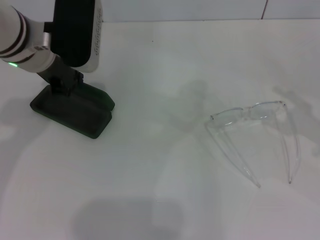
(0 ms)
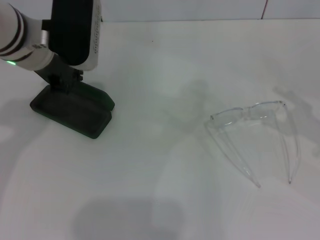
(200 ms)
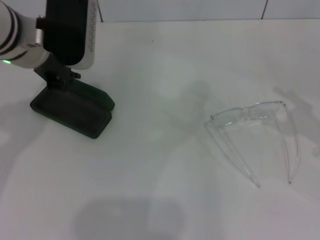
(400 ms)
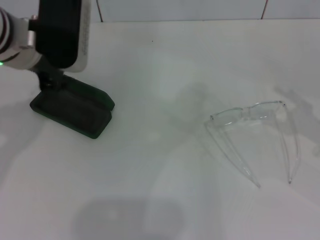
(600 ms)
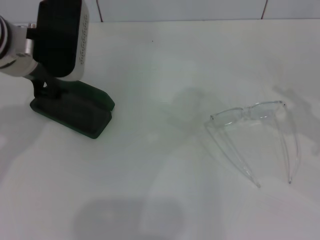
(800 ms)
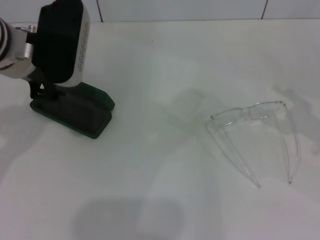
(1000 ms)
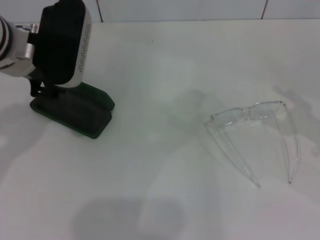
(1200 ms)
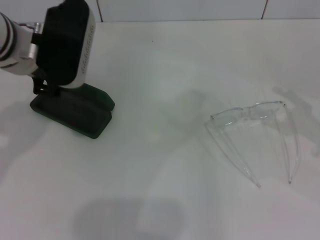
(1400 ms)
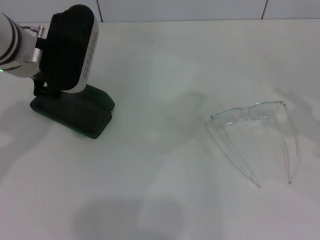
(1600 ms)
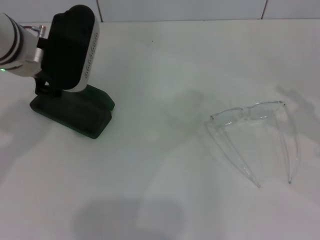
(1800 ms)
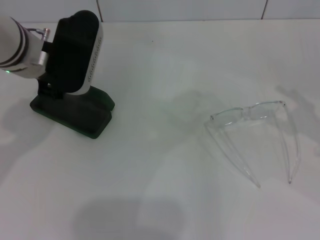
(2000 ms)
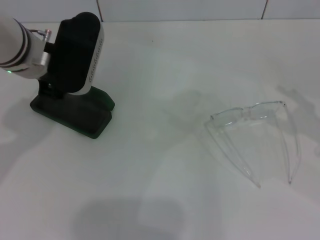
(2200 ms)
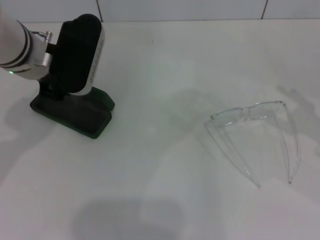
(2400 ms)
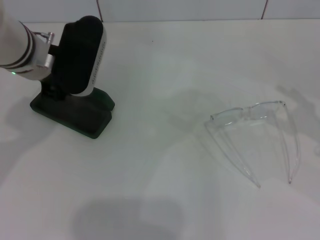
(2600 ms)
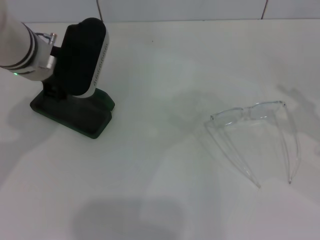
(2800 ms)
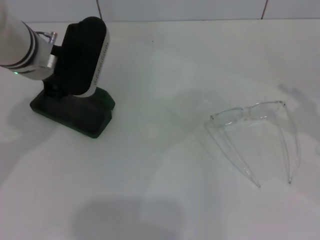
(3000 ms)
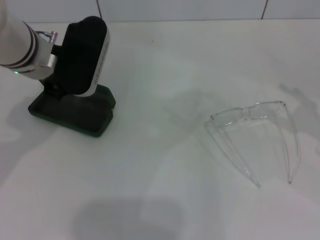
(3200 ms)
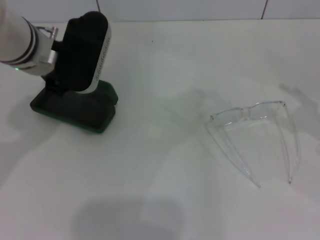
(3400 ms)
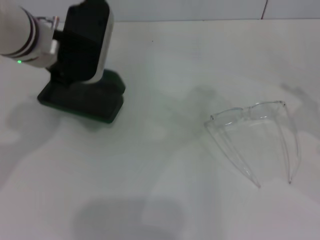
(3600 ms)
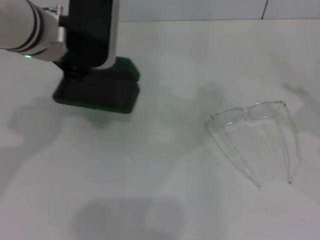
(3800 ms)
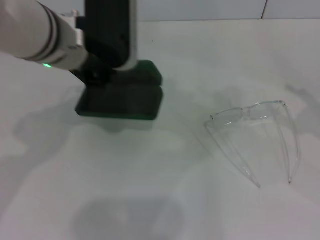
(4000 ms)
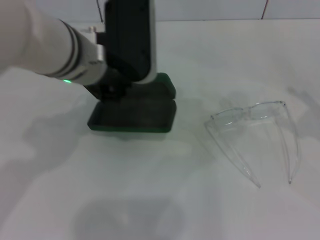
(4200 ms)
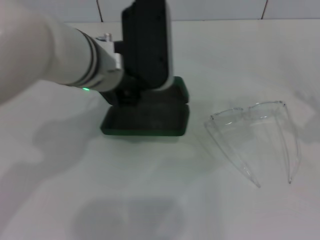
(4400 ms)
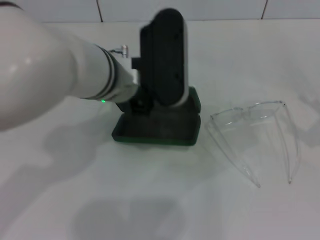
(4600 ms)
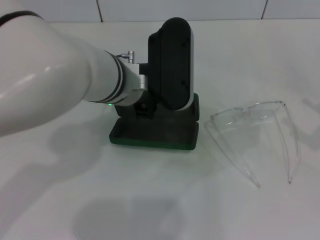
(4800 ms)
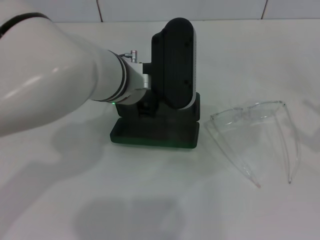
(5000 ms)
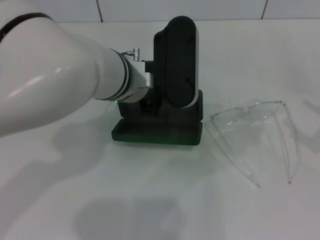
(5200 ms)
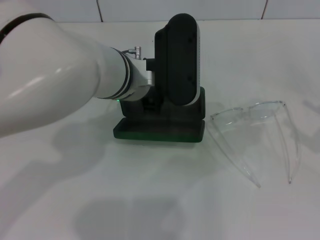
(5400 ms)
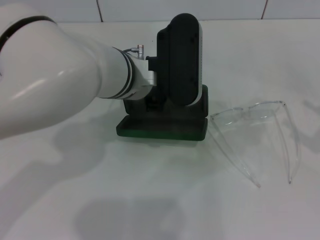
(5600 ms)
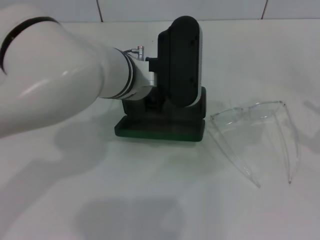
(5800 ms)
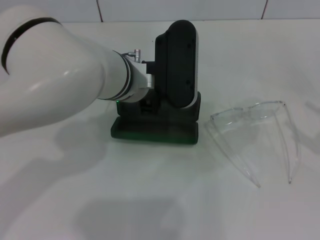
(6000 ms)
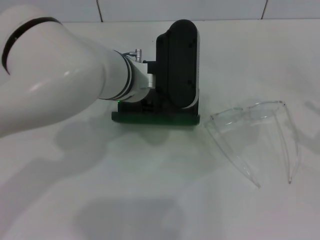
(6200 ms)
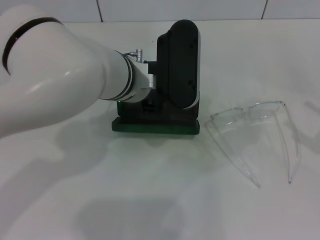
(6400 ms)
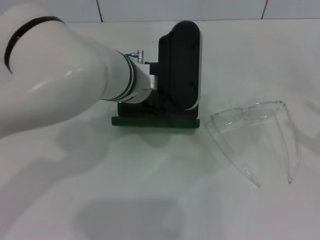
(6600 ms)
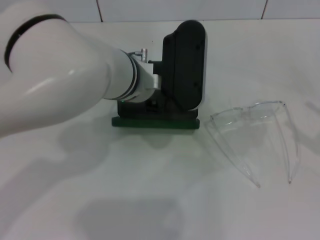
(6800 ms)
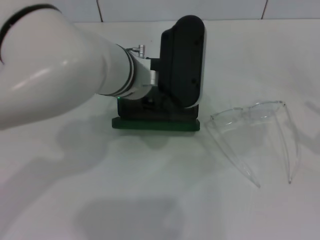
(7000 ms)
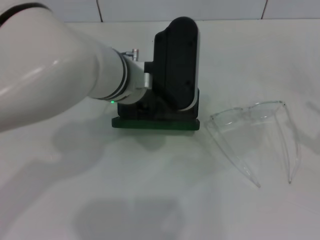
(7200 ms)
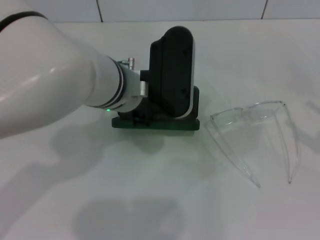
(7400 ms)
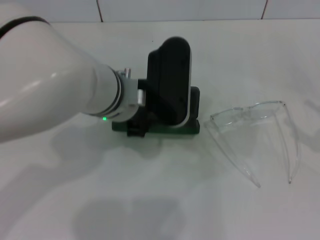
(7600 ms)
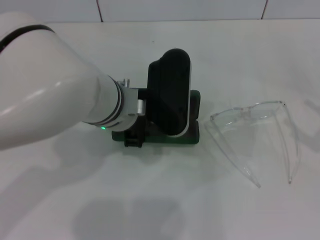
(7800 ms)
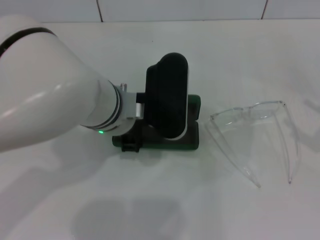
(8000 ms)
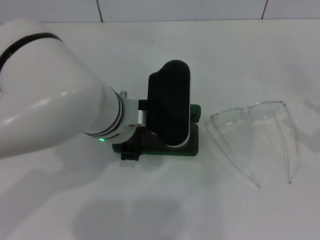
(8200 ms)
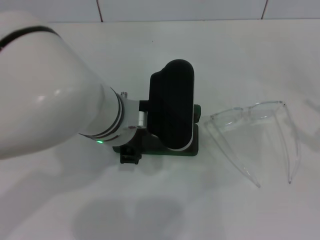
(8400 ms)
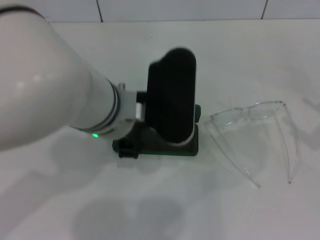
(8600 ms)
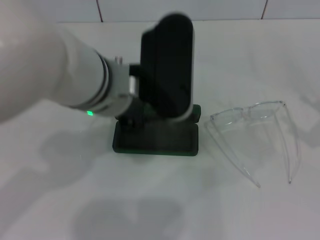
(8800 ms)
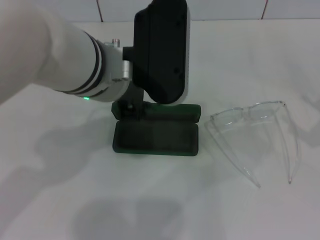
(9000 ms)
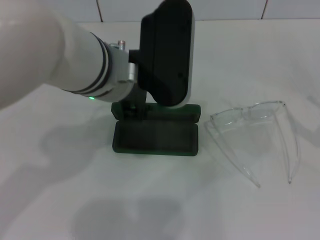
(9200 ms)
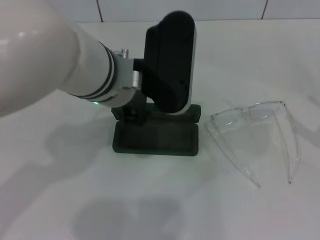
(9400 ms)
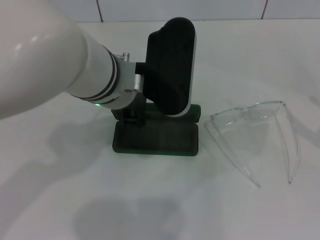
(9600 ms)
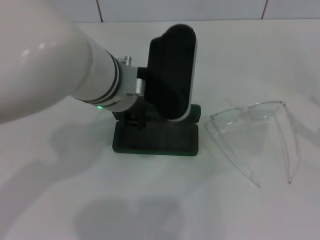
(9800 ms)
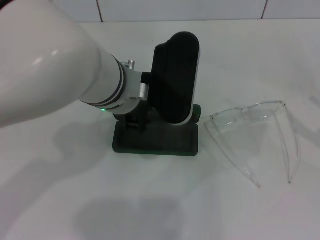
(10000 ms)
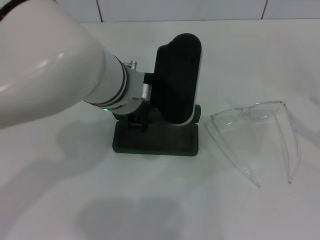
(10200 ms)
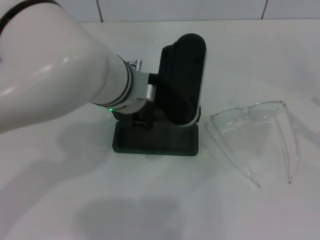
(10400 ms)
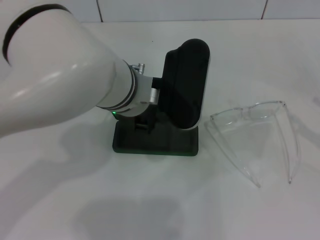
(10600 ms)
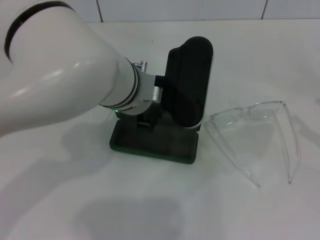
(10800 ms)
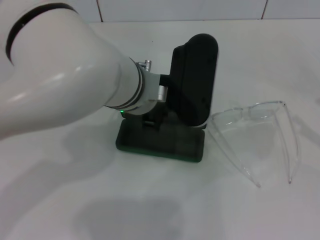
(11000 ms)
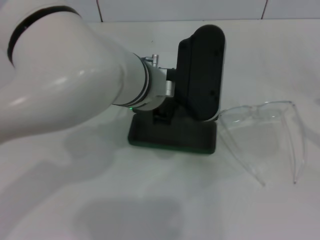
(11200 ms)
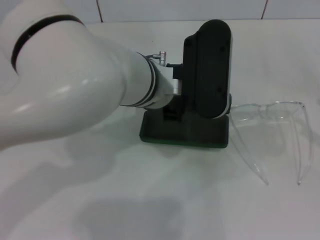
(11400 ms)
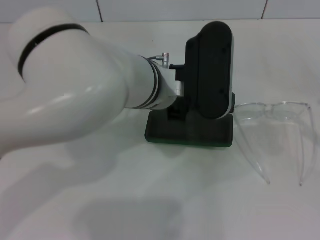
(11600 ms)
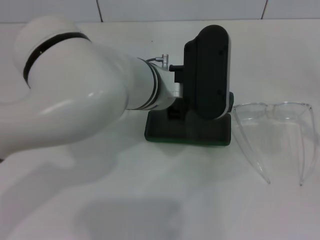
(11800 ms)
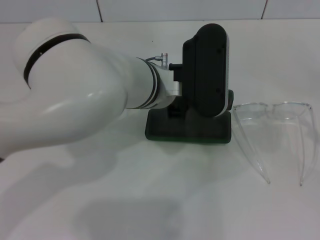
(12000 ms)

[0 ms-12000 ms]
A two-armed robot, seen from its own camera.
Step, 0 ms to 3000 ms: Grab the glasses case with your left hand.
Step, 3200 ms to 8000 ms: Place the glasses case in the center of the table with your left hand.
Step, 8200 ms to 10800 ms: Grab the glasses case with your left hand.
0 ms to 1600 ms: The left gripper opens.
1600 ms to 3000 ms: The grippers move only a little.
3000 ms to 4400 ms: The left gripper heads to the right, covering roughly 10 cm.
6000 ms to 7600 ms: The grippers make only small movements.
7600 ms to 9000 ms: The left gripper moves upward, approximately 5 cm.
9000 ms to 10400 ms: The left gripper travels downward by approximately 5 cm.
10400 ms to 12000 ms: The grippers move only a little.

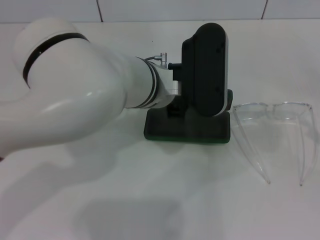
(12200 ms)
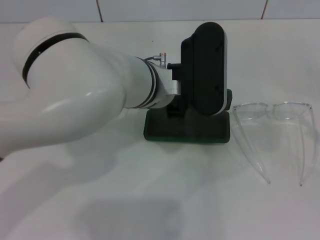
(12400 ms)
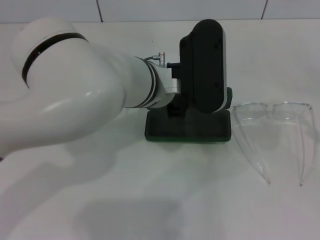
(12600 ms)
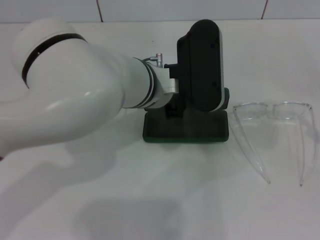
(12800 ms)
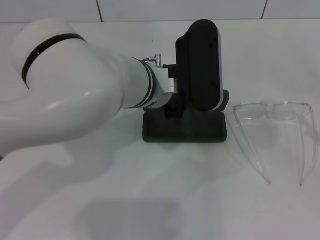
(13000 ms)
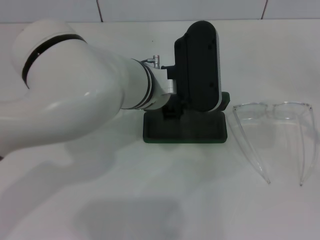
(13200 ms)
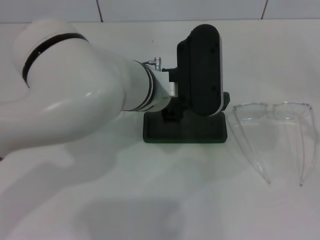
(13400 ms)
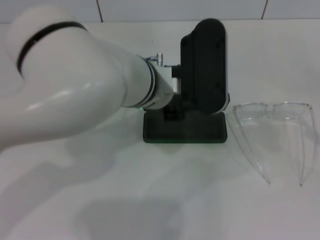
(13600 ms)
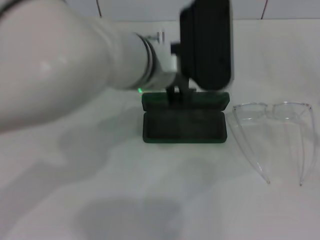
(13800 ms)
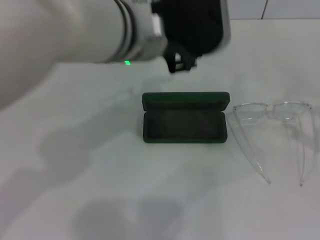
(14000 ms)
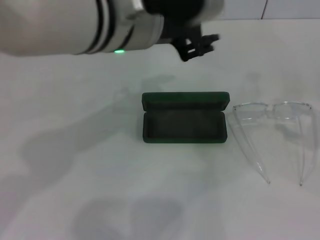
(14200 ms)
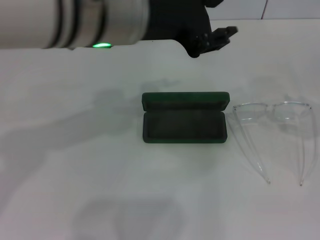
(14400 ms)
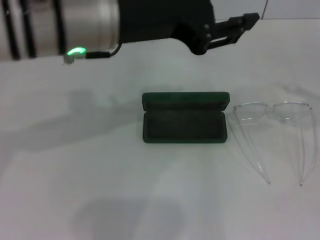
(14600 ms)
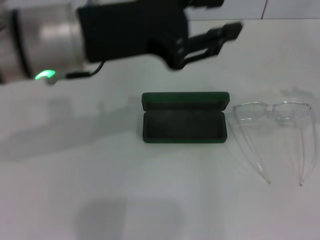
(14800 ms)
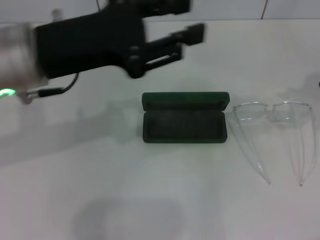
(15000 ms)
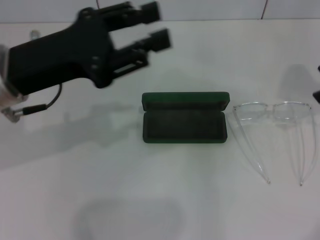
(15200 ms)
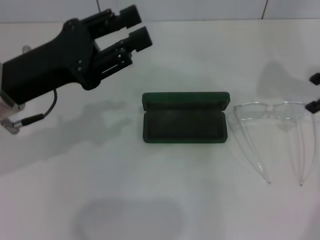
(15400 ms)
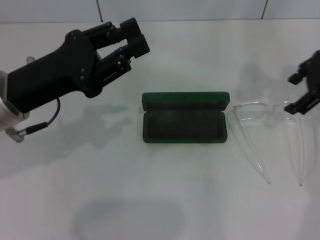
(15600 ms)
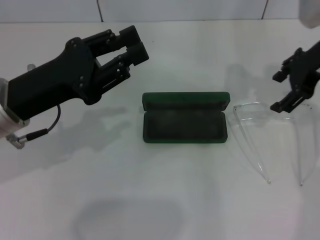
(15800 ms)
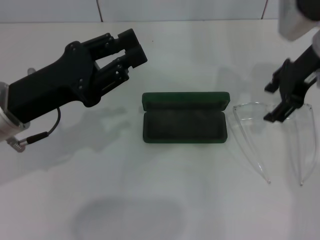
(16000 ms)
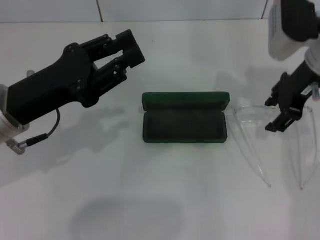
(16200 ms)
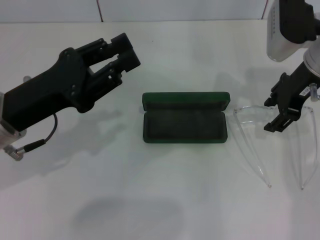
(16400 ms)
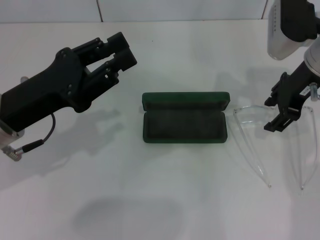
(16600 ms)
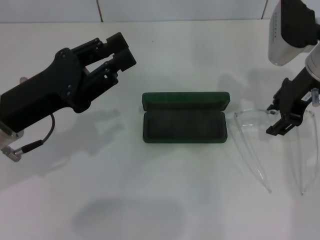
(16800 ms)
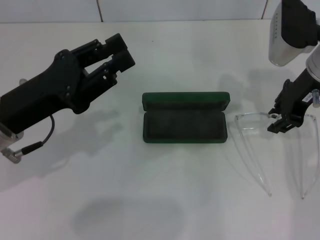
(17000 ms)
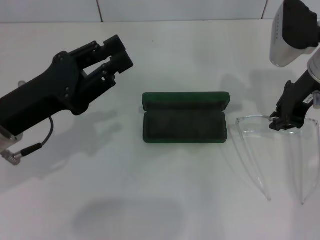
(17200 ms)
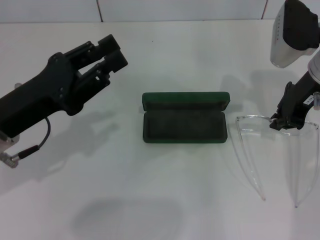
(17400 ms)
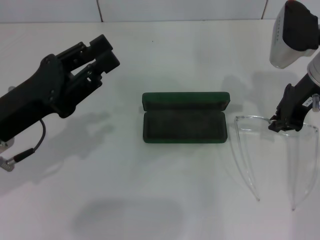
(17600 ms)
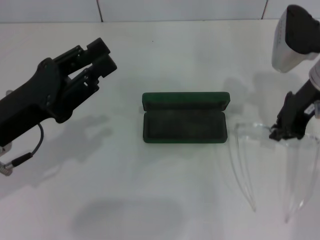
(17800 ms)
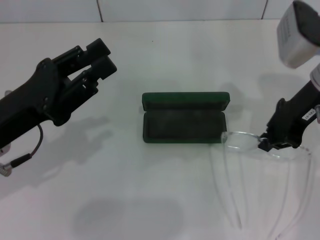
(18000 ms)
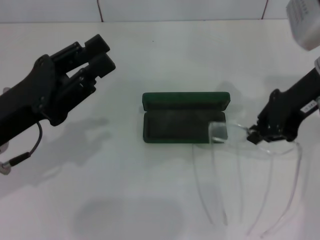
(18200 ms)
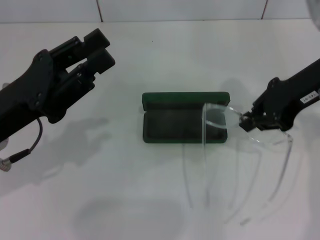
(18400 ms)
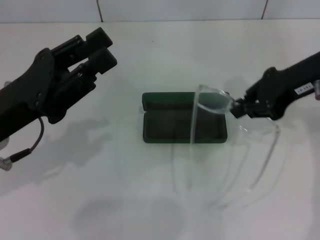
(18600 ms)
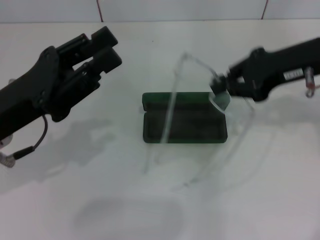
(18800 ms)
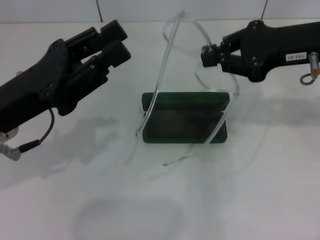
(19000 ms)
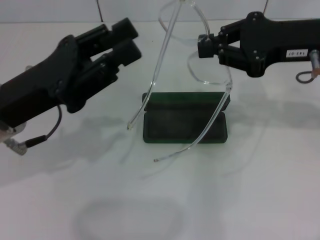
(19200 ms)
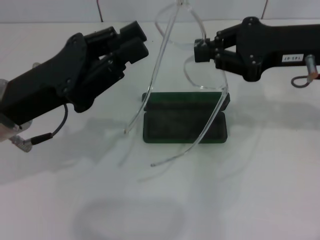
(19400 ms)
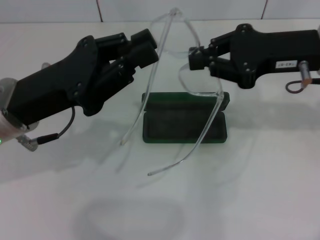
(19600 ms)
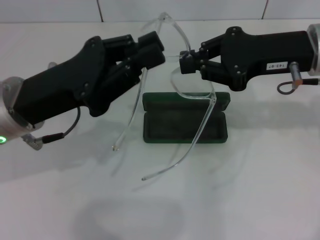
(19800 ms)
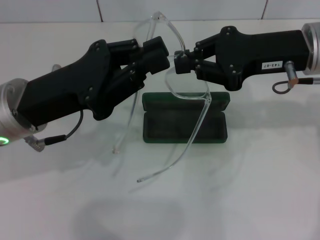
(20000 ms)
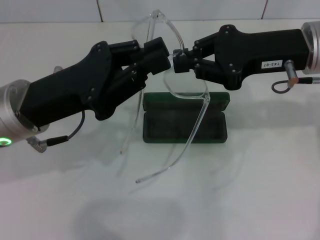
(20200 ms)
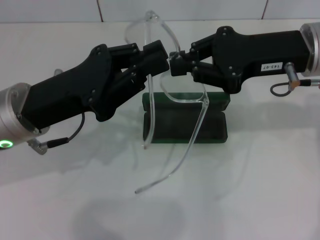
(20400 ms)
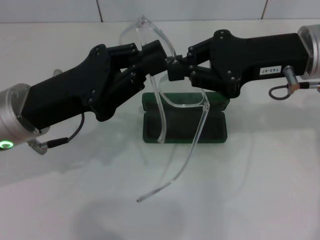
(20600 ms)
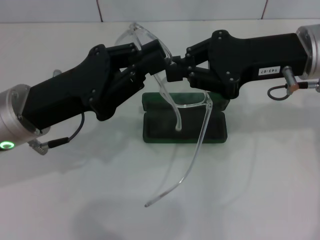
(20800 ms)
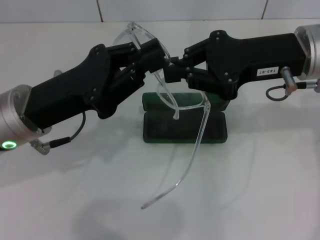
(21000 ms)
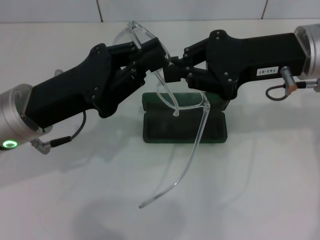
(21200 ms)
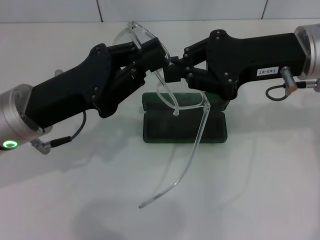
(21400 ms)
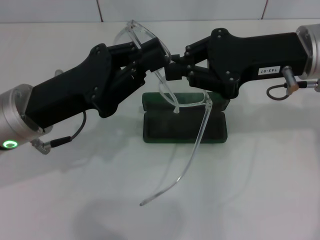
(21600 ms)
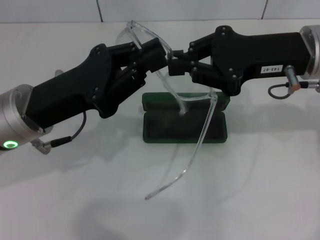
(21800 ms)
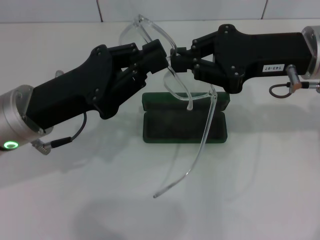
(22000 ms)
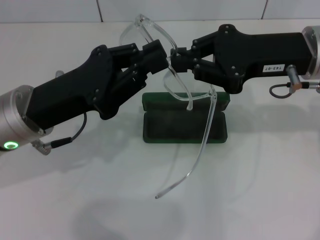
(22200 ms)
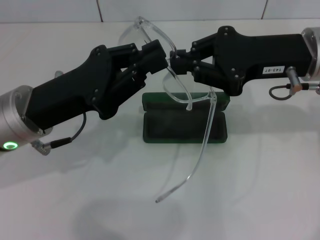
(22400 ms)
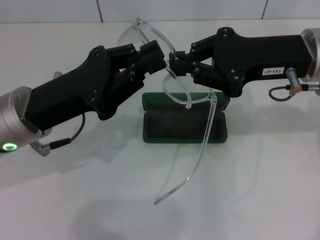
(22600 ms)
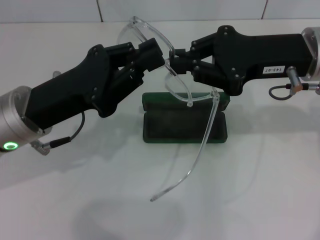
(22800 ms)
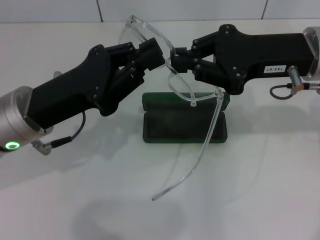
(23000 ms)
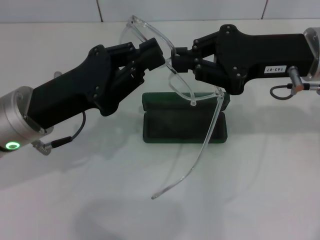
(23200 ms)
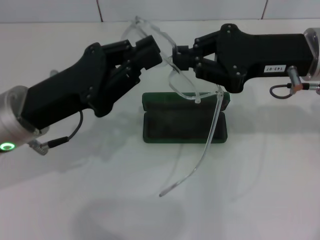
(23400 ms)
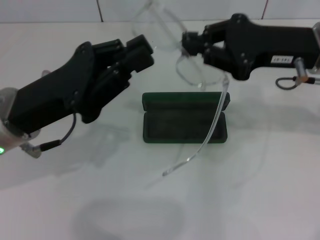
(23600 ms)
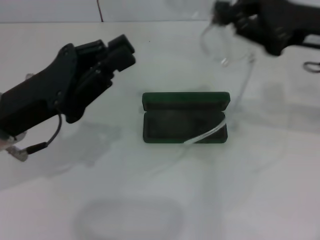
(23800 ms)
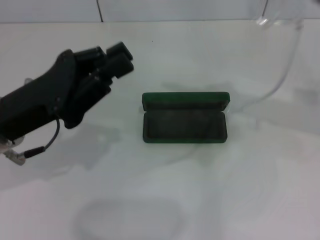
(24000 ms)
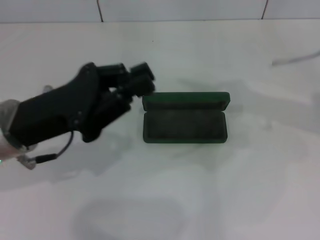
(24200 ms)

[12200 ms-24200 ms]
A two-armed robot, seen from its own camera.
Step, 12200 ms to 13400 ms: Place the glasses case in the center of the table with your left hand.
Step, 13600 ms to 17200 ms: Grab the eyeglass frame with your right hand.
12200 ms to 13800 ms: The left gripper opens up.
13800 ms to 15200 ms: The right gripper travels forward, upward and to the left by about 20 cm. The left gripper is displaced to the left by some 20 cm.
15200 ms to 16600 ms: The left gripper goes about 5 cm downward; the right gripper travels to the left and downward by approximately 15 cm.
16600 ms to 18200 ms: The right gripper changes place by roughly 5 cm, and closes its fingers.
18200 ms to 19800 ms: The left gripper shifts by some 5 cm.
19800 ms to 21200 ms: The grippers stay close to where they were, moving slightly.
21200 ms to 22600 ms: The two grippers keep their place.
22600 ms to 24200 ms: The right gripper shifts roughly 10 cm to the right.
